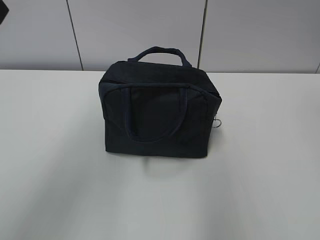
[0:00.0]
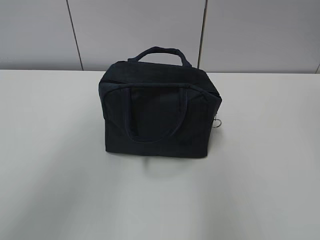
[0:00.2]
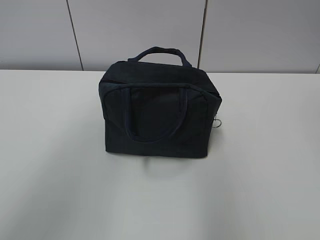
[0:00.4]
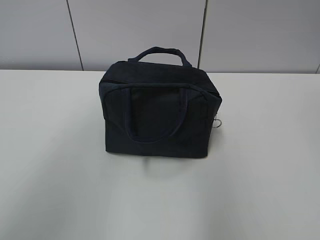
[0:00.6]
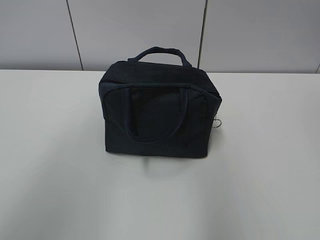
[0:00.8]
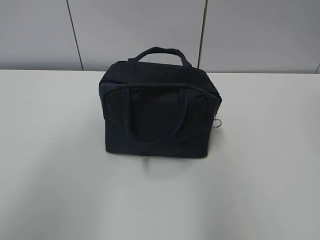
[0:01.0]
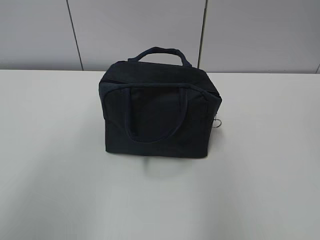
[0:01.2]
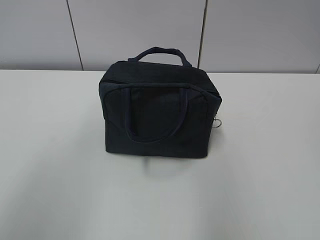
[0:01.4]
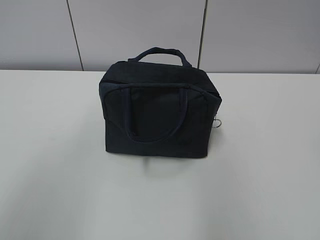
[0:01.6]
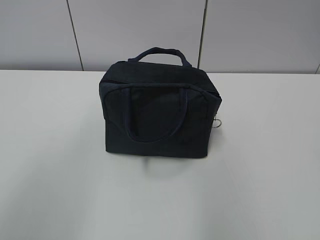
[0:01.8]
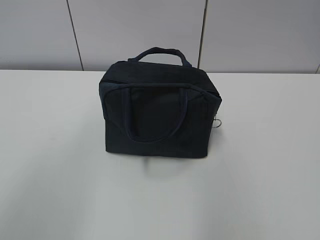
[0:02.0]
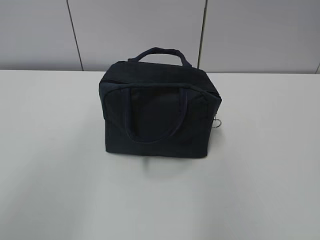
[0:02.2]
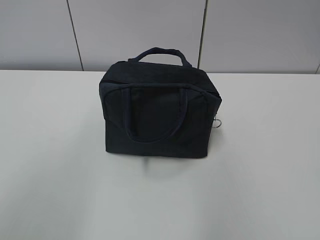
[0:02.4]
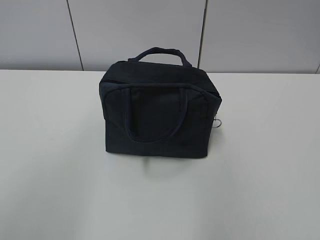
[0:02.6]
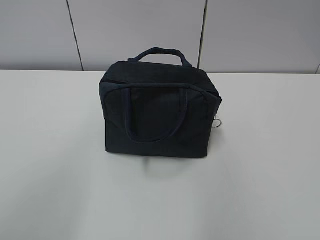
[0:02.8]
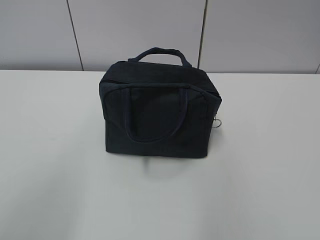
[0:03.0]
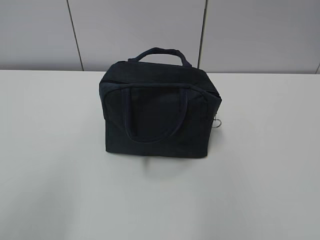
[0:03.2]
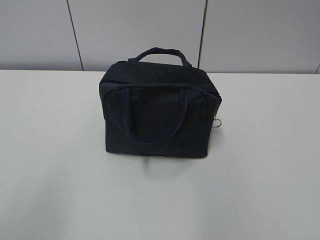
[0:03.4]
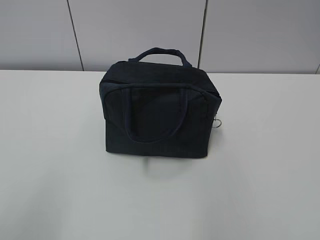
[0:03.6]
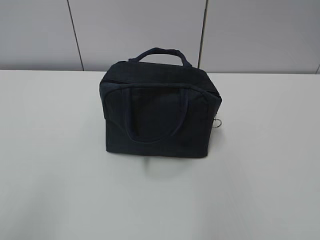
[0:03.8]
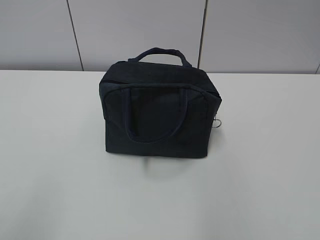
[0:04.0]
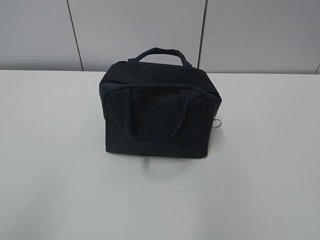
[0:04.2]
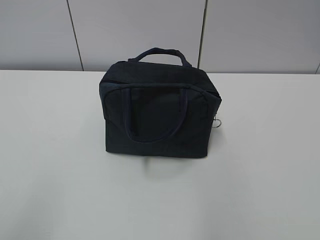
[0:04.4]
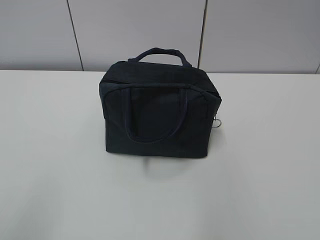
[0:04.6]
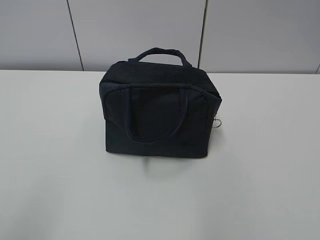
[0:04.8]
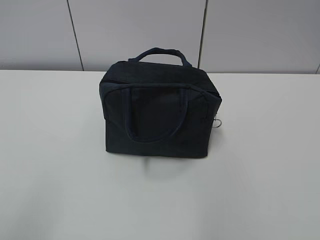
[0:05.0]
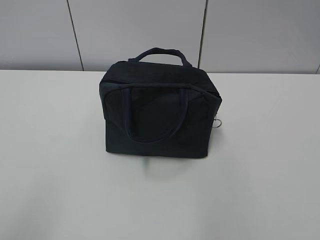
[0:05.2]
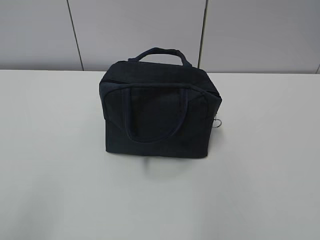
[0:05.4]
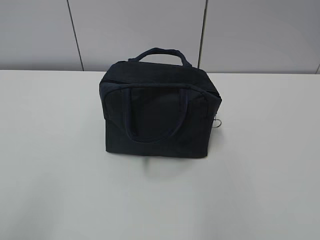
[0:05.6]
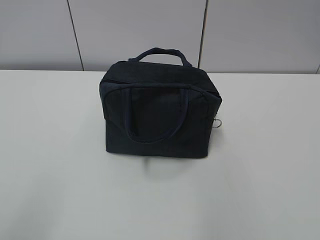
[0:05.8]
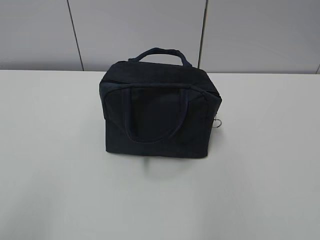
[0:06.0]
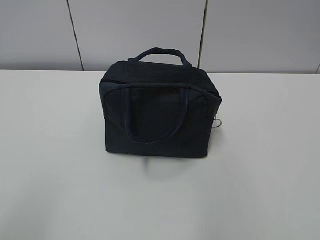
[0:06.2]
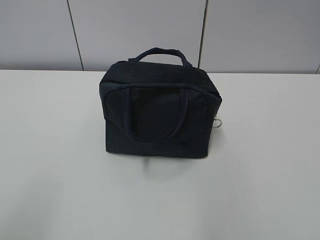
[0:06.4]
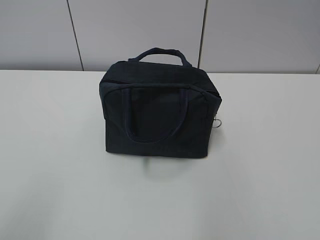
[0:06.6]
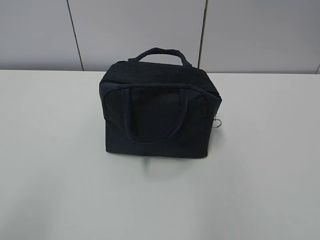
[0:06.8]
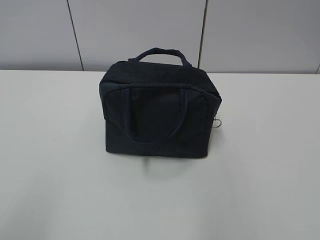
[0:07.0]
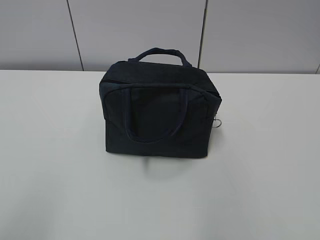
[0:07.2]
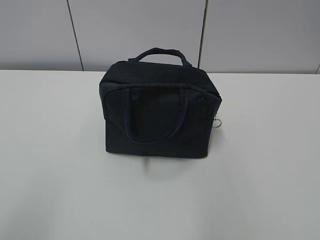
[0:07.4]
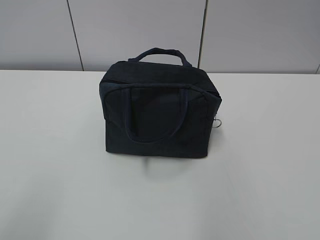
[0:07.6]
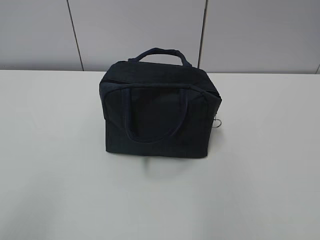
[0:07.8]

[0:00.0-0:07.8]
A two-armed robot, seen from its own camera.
0:00.0 to 0:01.6: The left gripper is displaced backward by about 15 cm.
0:06.2 to 0:07.8: The two grippers keep their place.

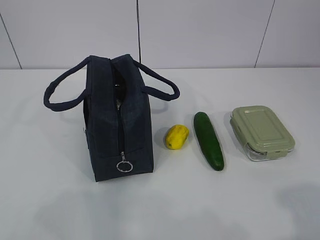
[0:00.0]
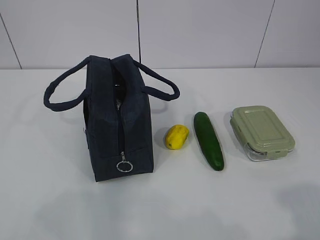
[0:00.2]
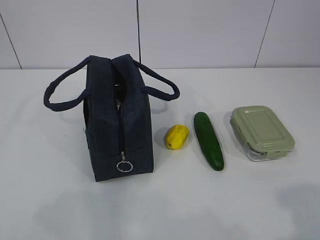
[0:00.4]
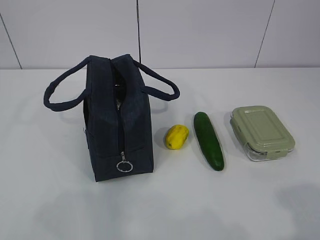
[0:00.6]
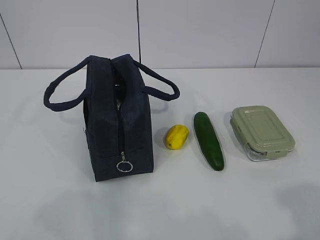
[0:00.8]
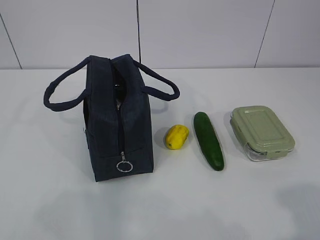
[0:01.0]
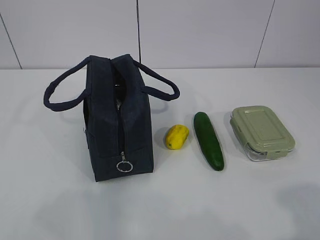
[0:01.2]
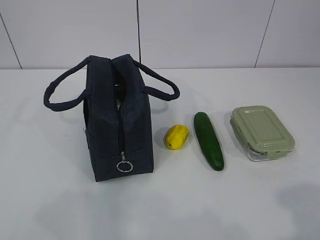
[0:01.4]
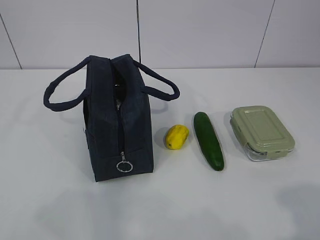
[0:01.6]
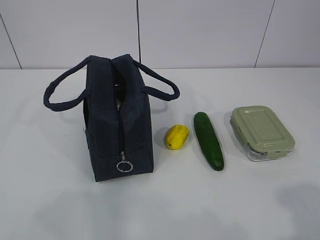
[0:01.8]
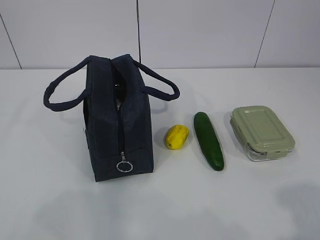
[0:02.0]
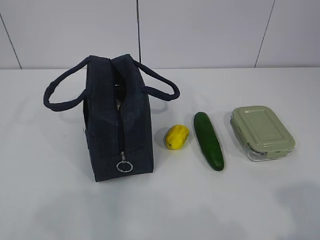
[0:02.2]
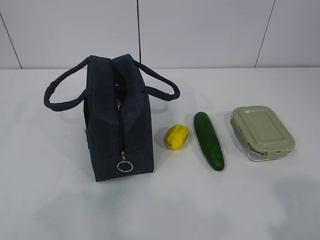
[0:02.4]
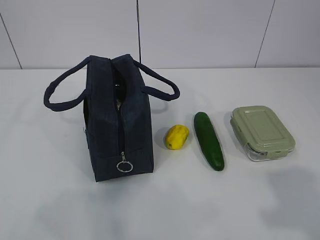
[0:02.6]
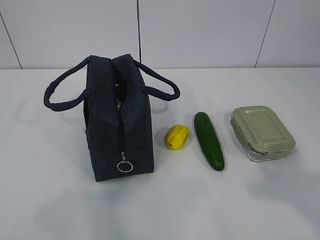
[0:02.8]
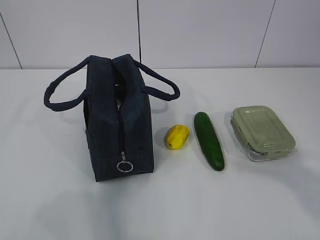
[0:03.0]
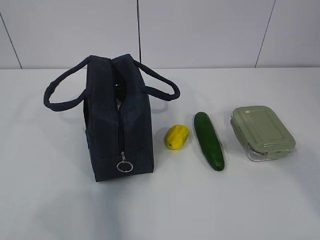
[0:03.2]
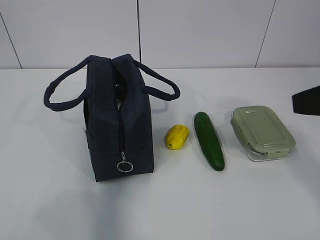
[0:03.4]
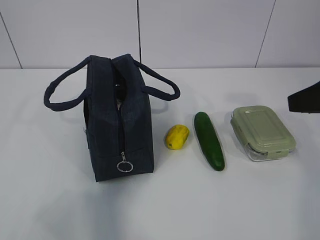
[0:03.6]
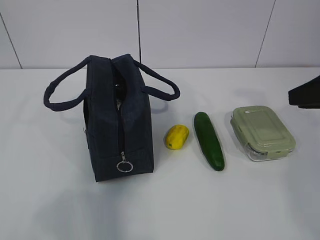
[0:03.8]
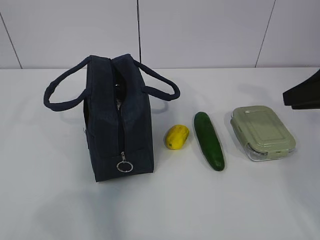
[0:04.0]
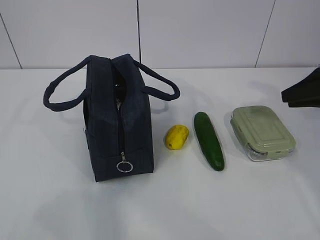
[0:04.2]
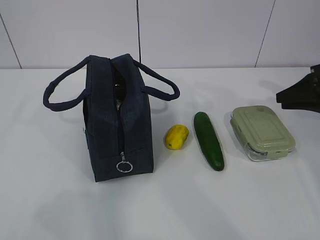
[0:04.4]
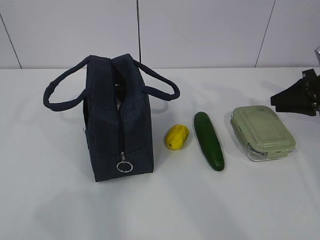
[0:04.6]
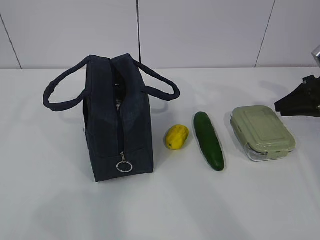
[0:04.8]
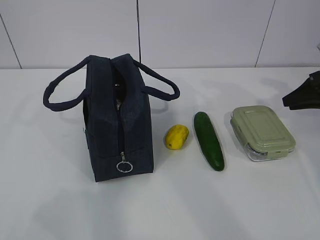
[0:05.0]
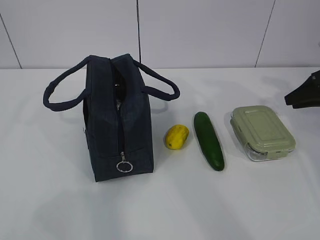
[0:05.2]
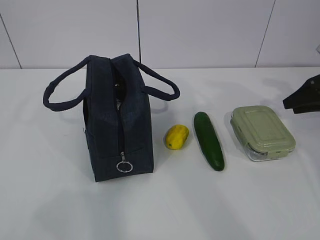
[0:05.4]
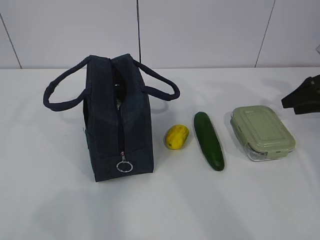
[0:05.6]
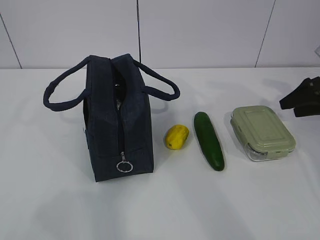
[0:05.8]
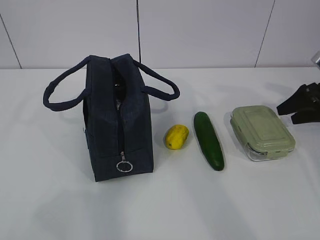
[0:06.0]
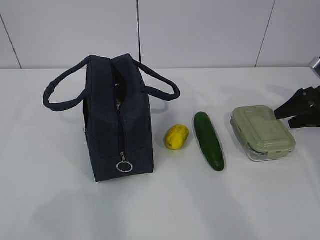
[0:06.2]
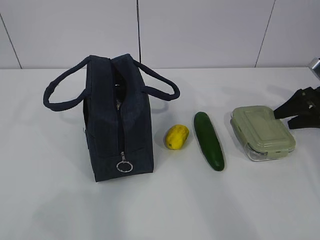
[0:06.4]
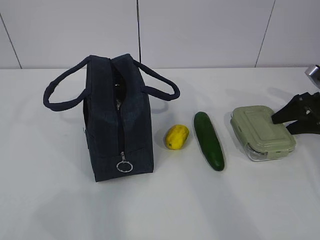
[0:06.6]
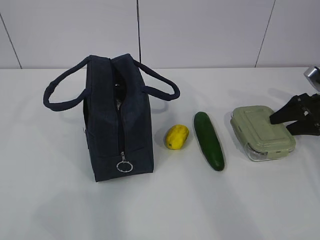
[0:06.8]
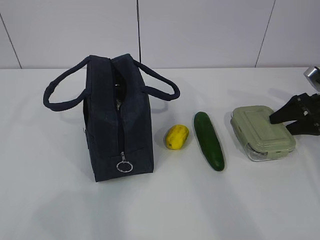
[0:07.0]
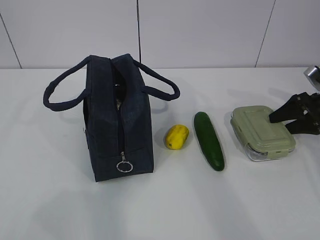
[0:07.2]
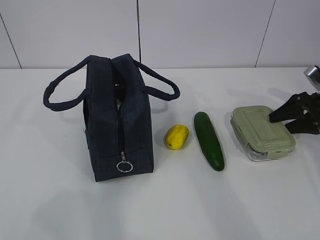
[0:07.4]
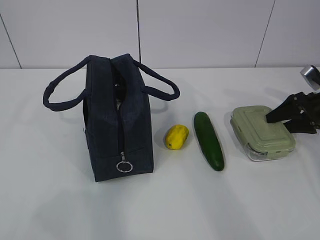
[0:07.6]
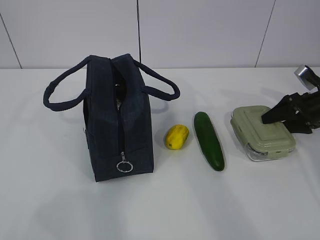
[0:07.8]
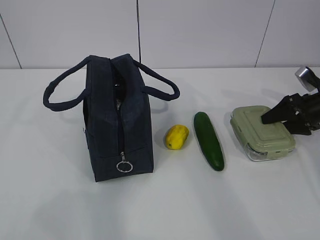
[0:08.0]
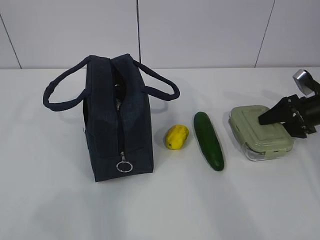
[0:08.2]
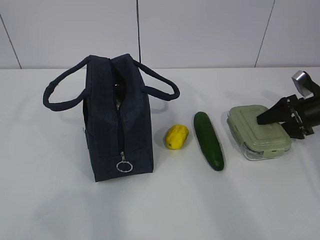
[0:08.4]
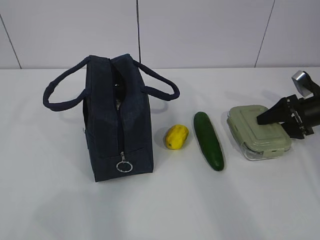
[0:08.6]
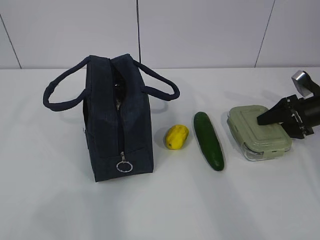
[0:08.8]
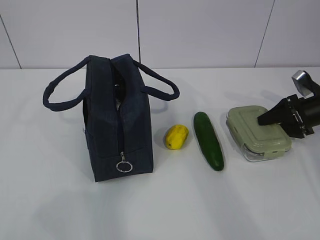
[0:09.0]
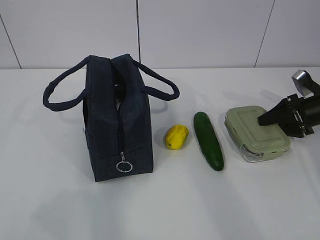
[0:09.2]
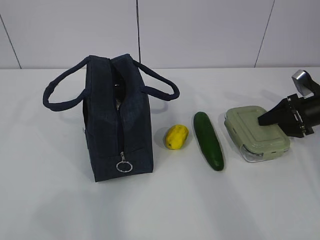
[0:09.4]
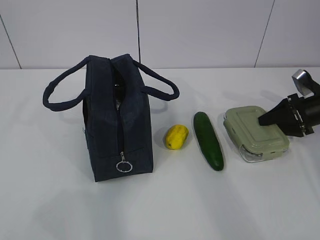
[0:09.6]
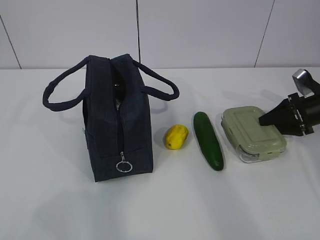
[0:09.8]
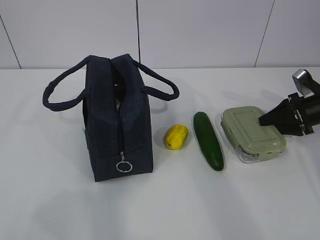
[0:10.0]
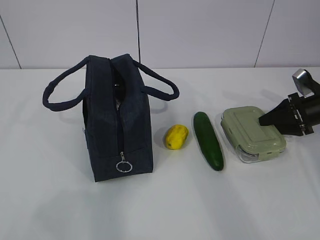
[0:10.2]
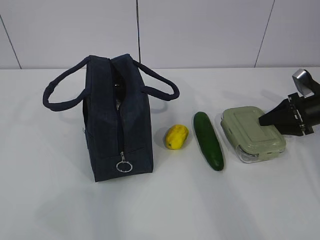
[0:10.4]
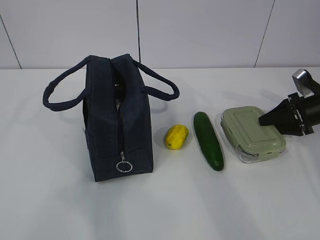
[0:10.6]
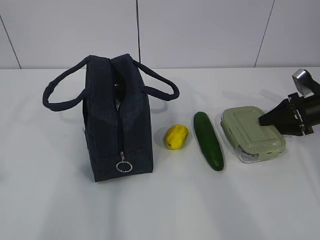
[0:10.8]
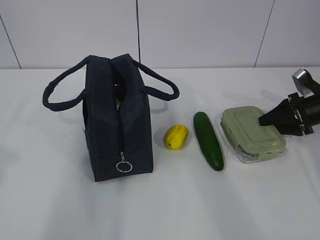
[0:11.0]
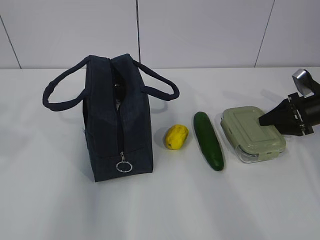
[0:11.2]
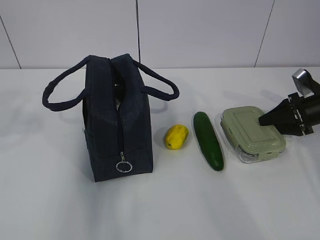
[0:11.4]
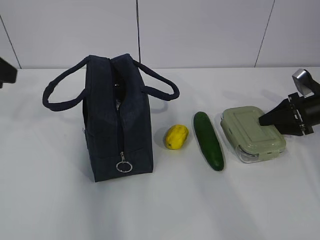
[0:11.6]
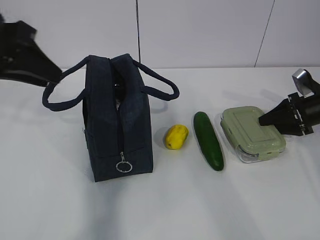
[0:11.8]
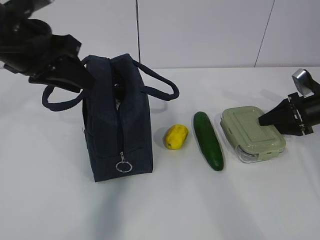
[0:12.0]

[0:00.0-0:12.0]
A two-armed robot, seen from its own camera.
0:01.6 to 0:03.0: The right gripper shifts about 10 cm forward and upward.
0:03.0 to 0:04.4: The right gripper is displaced forward and downward by approximately 30 cm.
0:04.4 to 0:06.0: The right gripper shifts by some 5 cm, and opens up.
0:06.0 to 0:09.0: The grippers move only a little.
0:09.0 to 0:10.4: Both grippers stay put.
0:10.4 to 0:12.0: The left gripper travels forward and to the right by about 35 cm.

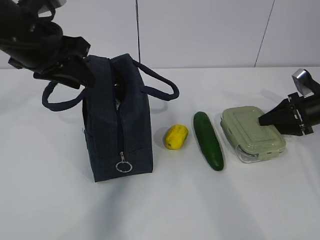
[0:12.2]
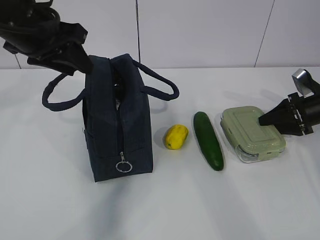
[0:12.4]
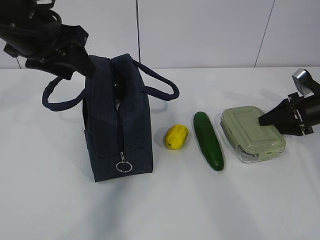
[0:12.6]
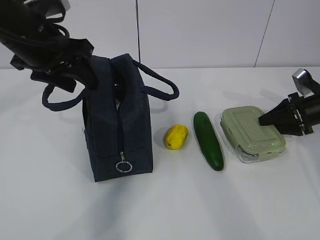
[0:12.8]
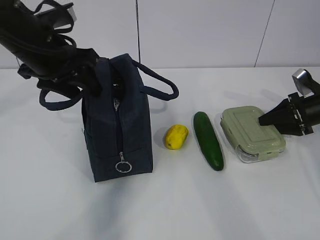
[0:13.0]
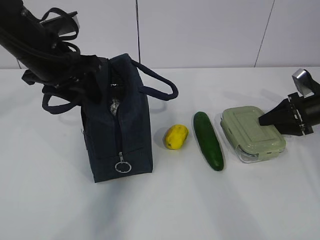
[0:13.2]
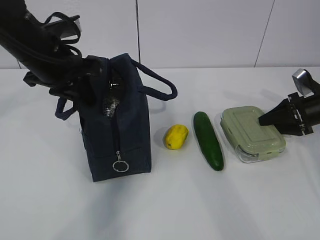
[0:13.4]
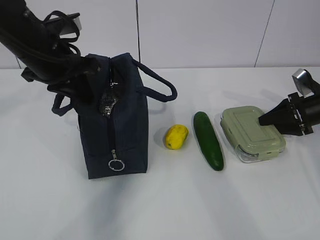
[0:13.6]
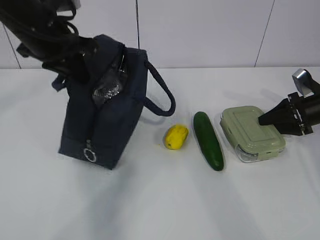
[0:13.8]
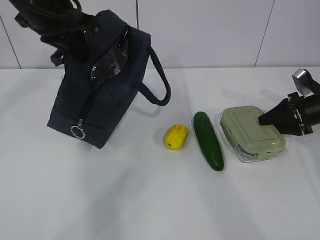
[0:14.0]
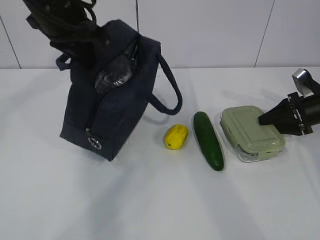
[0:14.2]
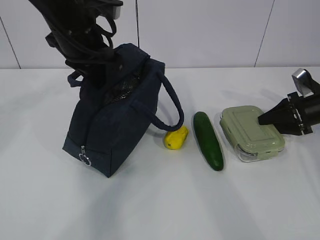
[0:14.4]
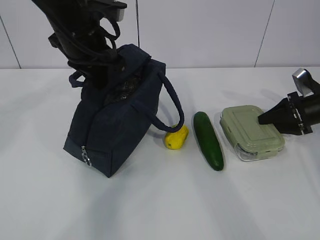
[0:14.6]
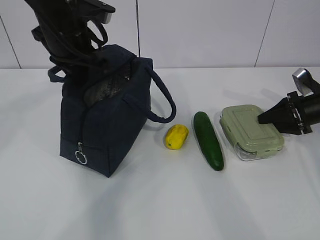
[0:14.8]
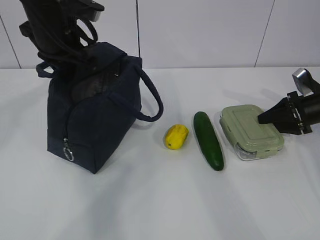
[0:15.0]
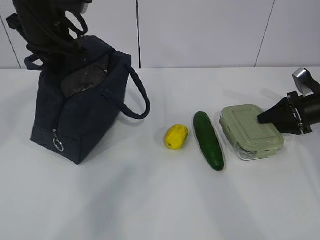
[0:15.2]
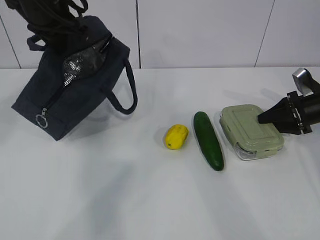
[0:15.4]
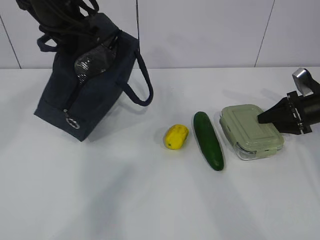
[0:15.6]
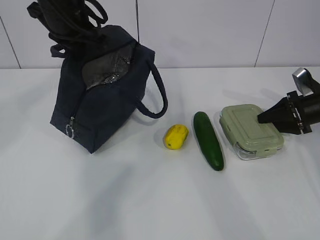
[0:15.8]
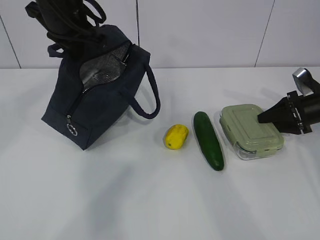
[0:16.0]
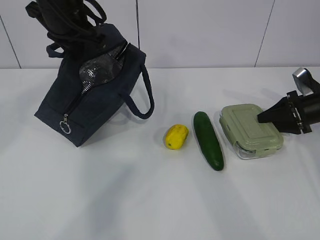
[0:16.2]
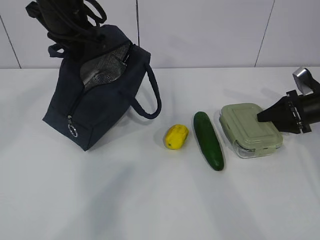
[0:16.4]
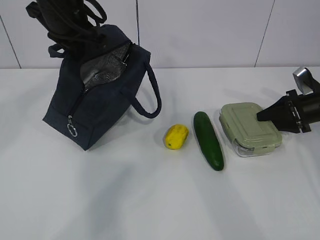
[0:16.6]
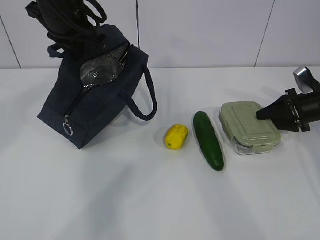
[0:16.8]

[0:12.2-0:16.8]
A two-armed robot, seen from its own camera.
0:12.2 to 0:13.8: The left gripper closes.
0:15.2 to 0:16.8: There are only small adjustments of the grippers.
